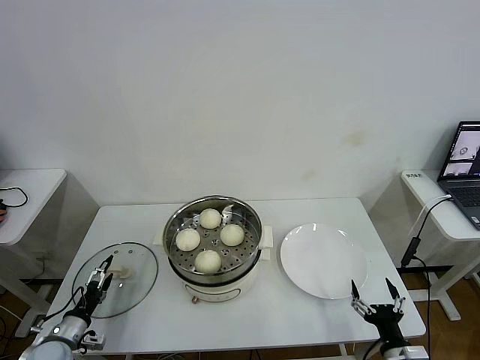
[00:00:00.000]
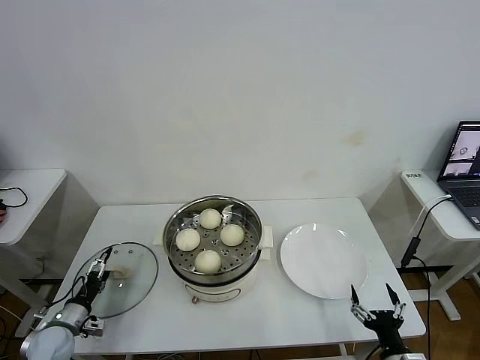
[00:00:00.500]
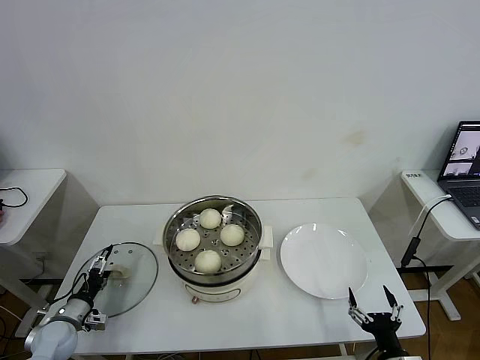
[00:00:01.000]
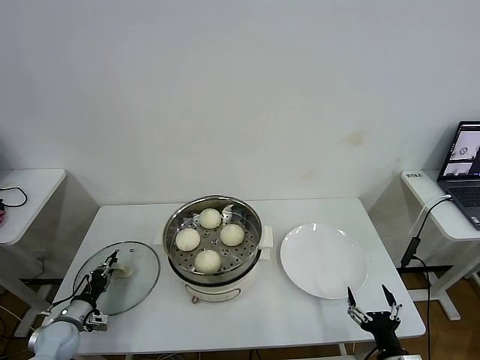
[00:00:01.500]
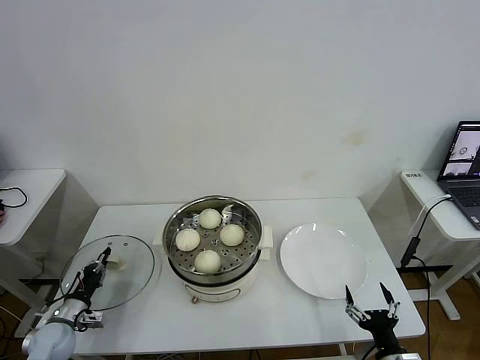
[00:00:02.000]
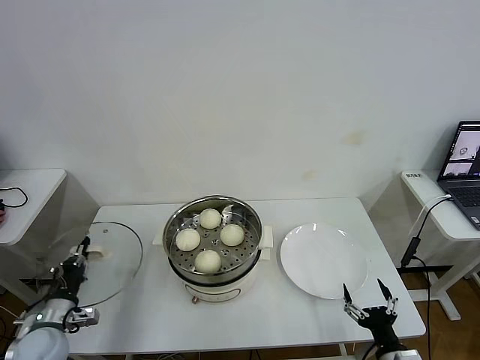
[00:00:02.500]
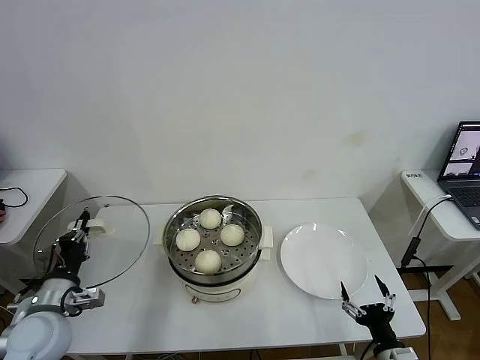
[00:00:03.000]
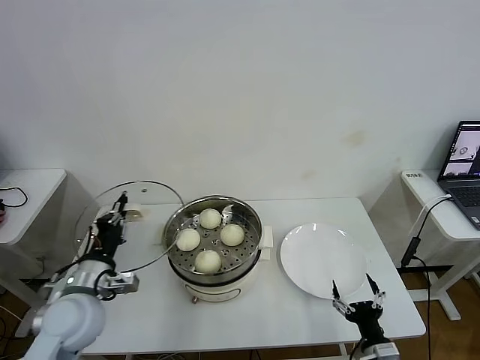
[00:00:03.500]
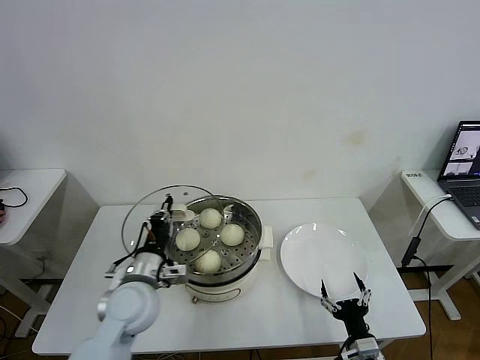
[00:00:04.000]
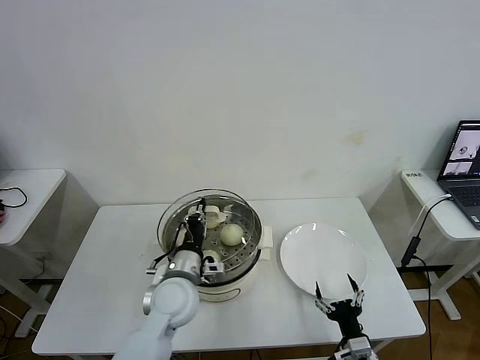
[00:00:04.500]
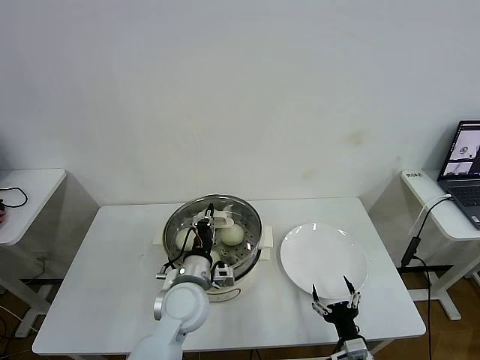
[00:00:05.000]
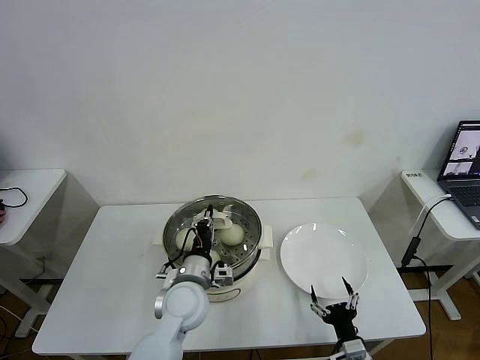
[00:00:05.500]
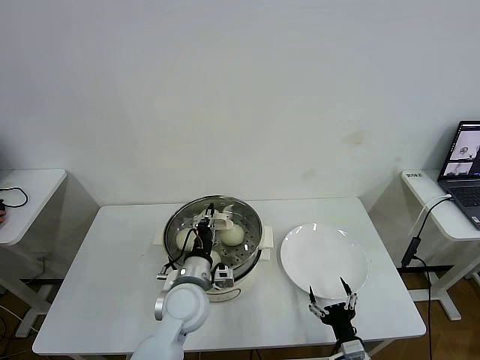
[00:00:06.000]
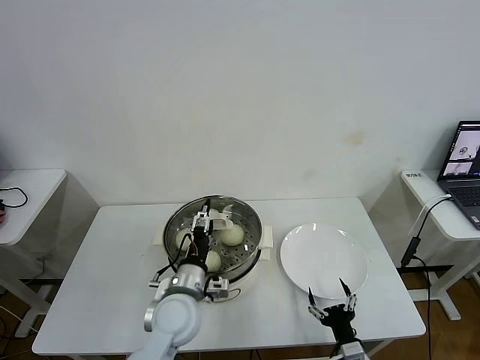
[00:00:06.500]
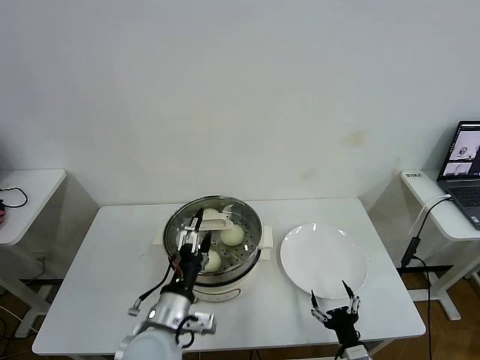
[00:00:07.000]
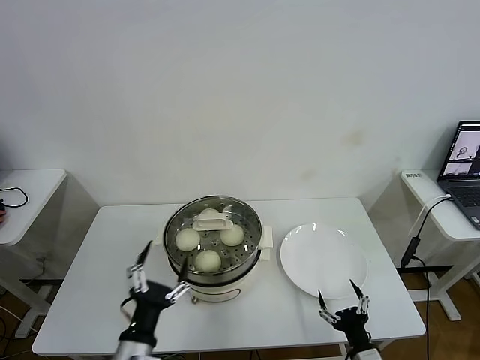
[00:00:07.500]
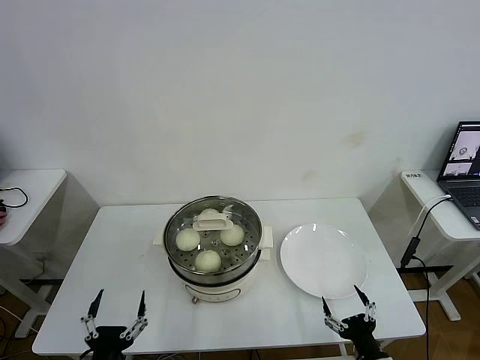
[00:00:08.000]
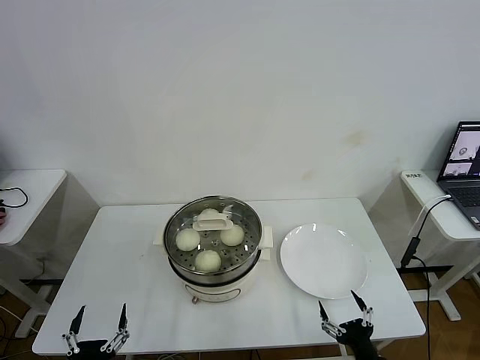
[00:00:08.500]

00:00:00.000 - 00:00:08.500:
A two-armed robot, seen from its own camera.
Task of the whole recording: take steamed baozi put them in steamer then cover it.
Step, 00:00:02.000 - 00:00:06.500: Place the pot lid on the steamer with left gripper.
00:00:00.000 - 00:00:02.000: The left gripper heads forward, covering about 5 cm, and closes up.
00:00:02.000 - 00:00:04.000: The left gripper heads to the right and upward, covering about 30 cm. Meanwhile the right gripper ends up approximately 5 cm from where it was.
00:00:04.000 - 00:00:06.500: The left gripper shifts roughly 10 cm to the right, and opens up.
00:00:06.500 - 00:00:08.500: The right gripper moves some 10 cm, while the left gripper is displaced backward and to the left by roughly 30 cm.
